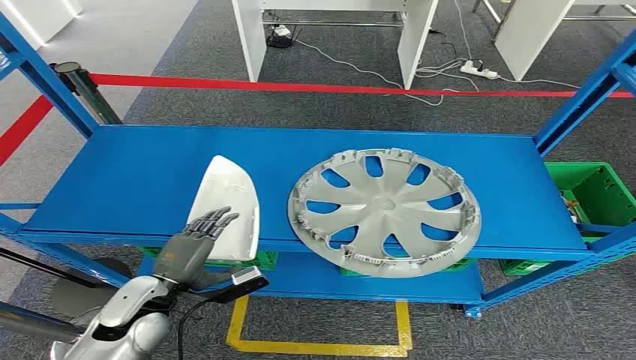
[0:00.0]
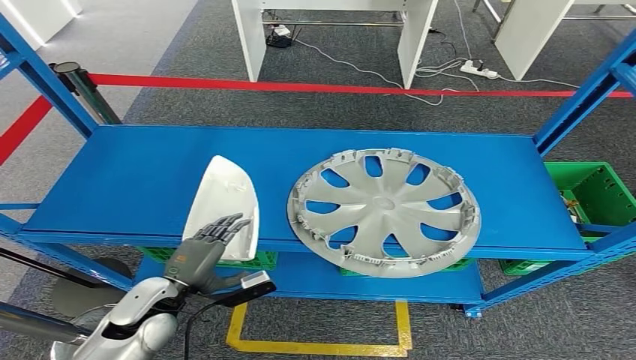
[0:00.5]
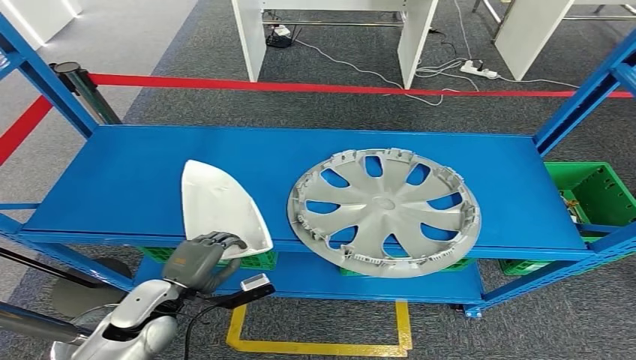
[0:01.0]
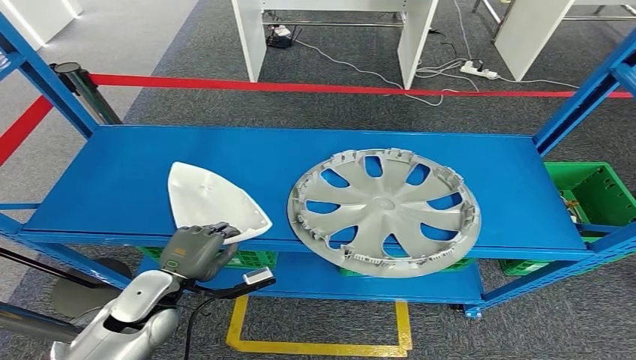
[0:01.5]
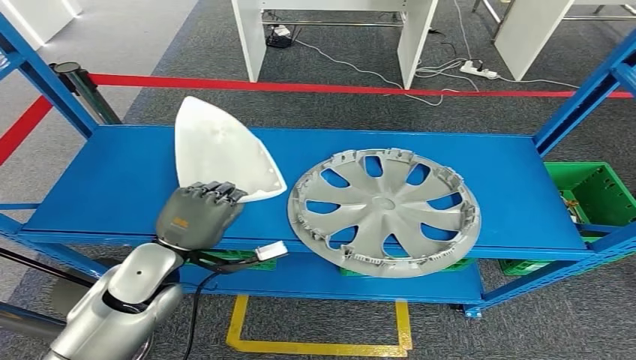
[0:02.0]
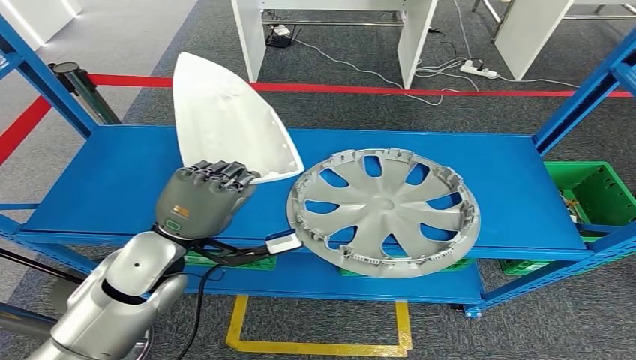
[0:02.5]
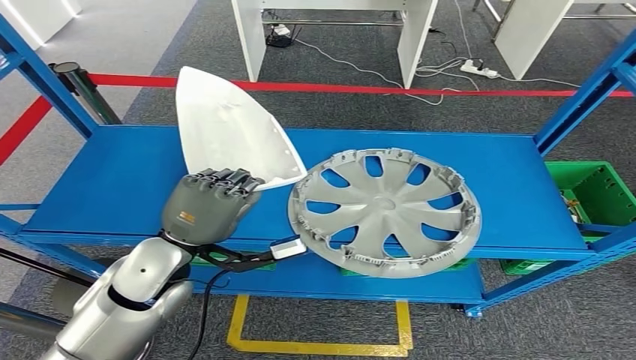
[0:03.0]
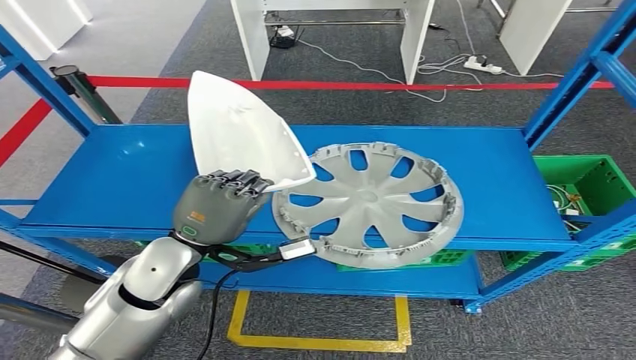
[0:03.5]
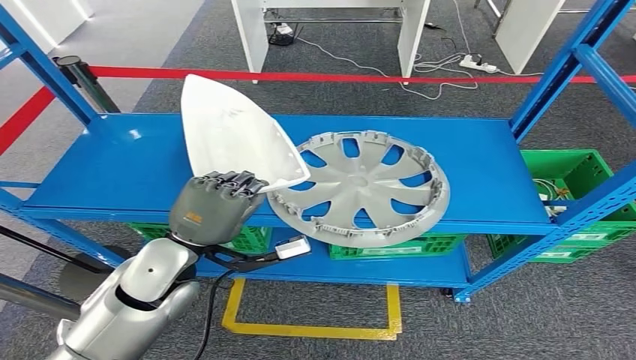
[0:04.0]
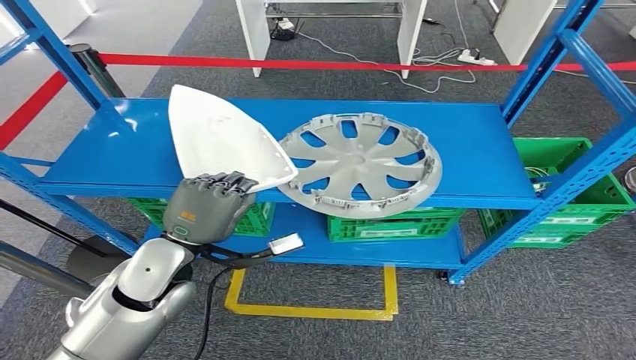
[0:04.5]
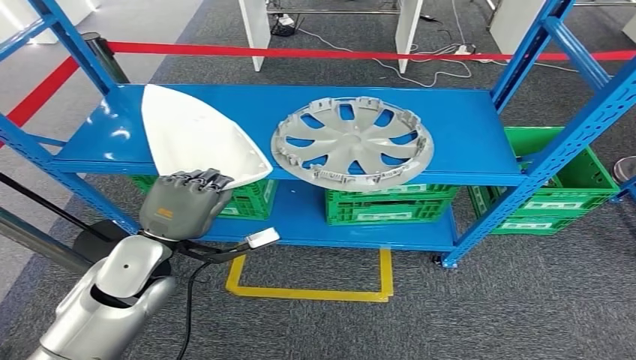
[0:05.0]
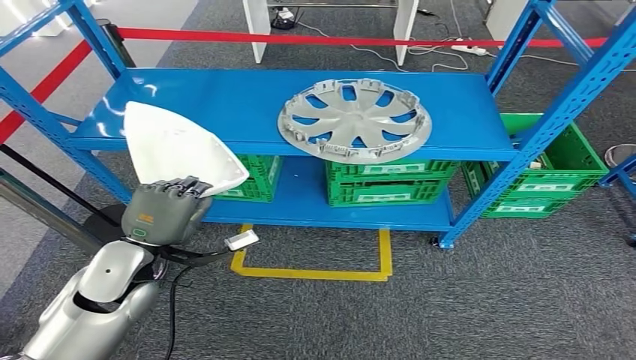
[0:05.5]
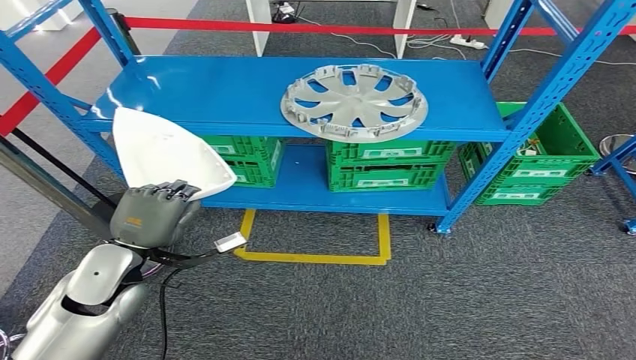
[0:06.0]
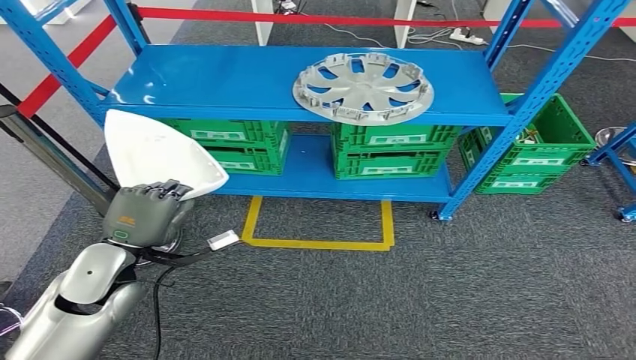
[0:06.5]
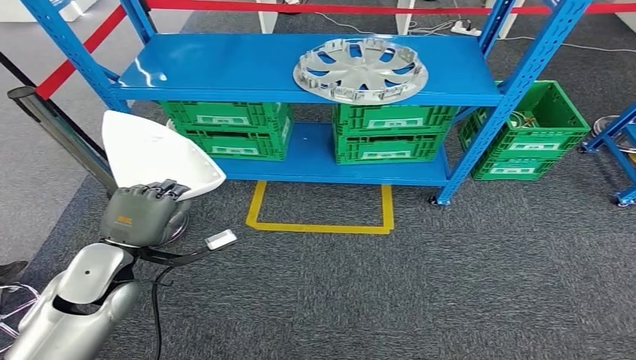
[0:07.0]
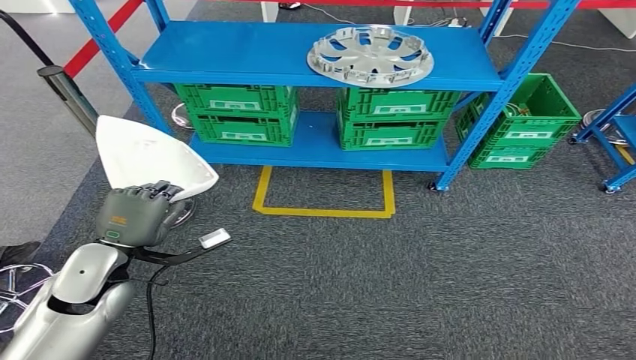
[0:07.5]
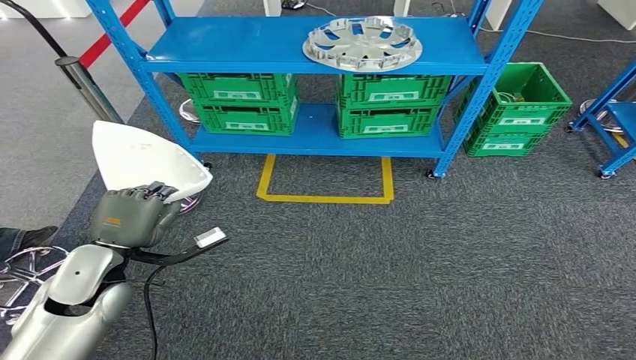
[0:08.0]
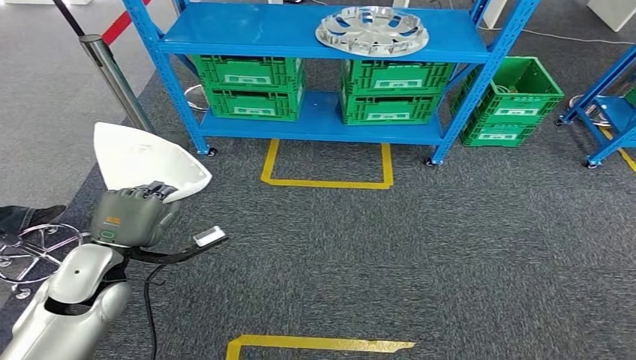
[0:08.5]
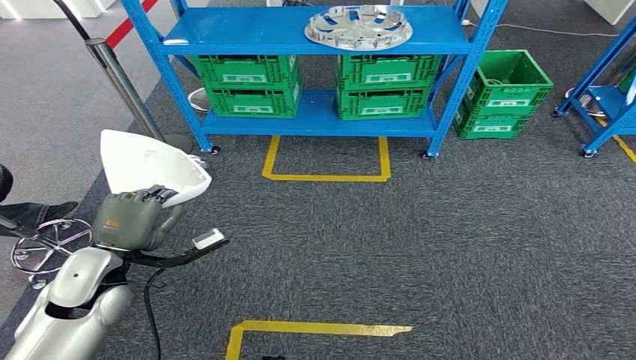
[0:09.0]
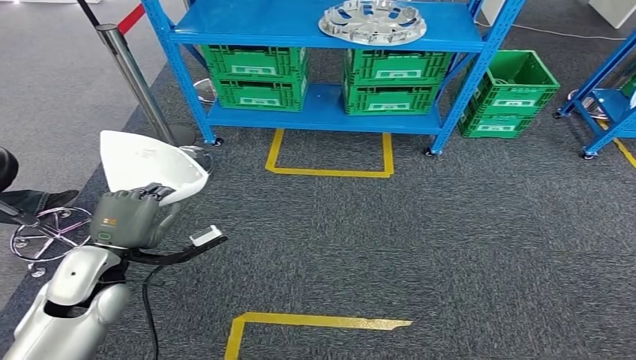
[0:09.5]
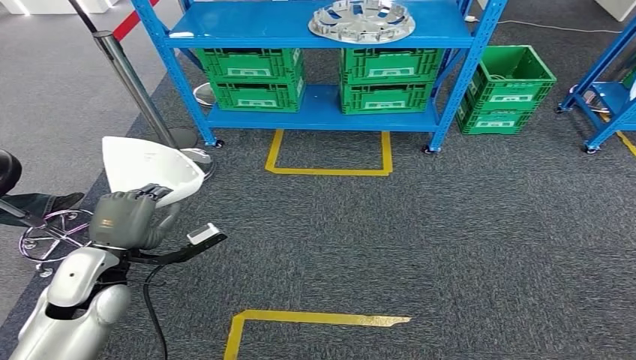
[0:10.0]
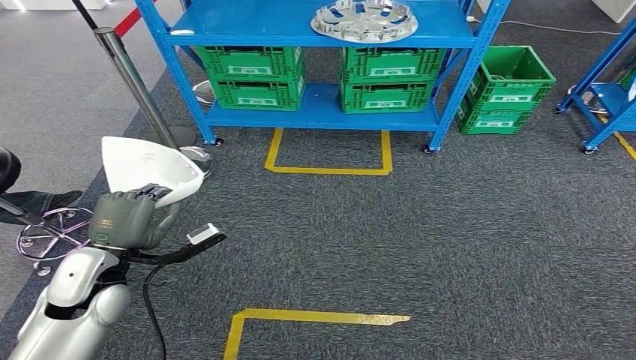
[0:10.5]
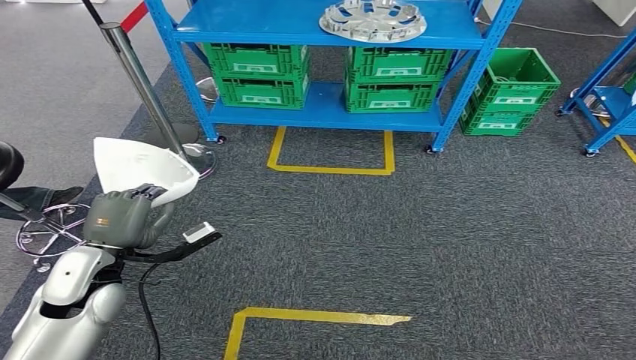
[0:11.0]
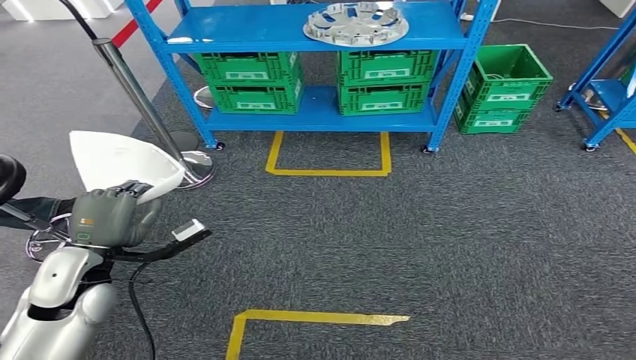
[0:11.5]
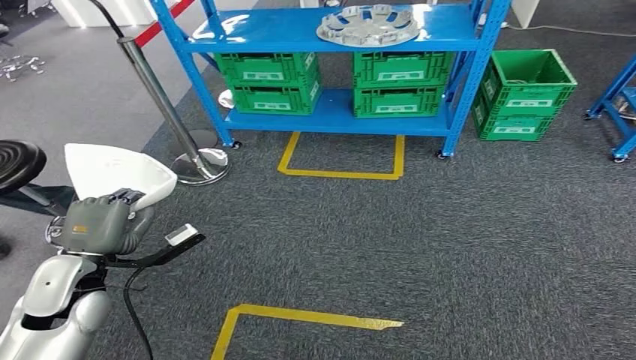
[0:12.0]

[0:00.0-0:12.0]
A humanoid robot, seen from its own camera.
Step, 0:00.0 to 0:02.5: Pick up the small component from the shelf.

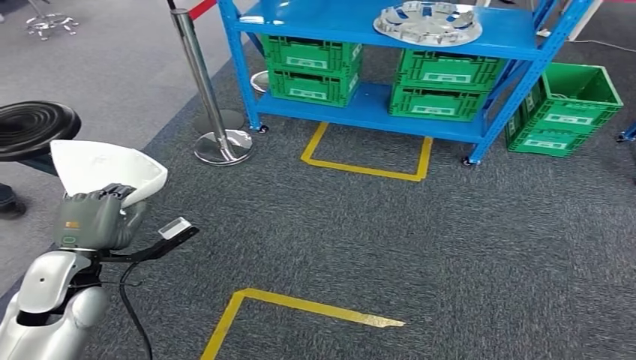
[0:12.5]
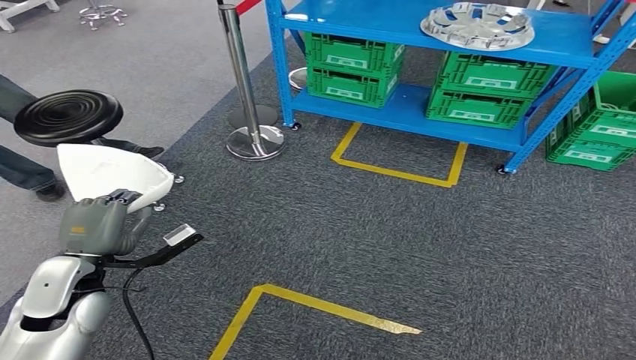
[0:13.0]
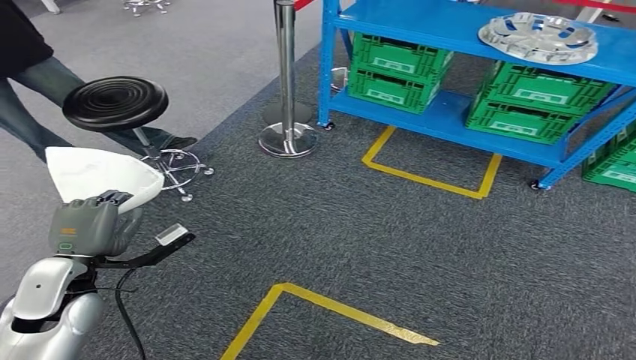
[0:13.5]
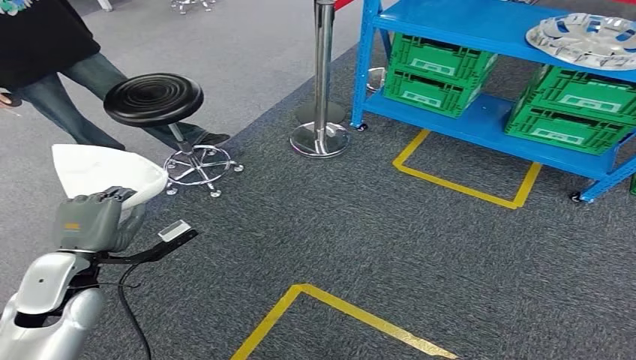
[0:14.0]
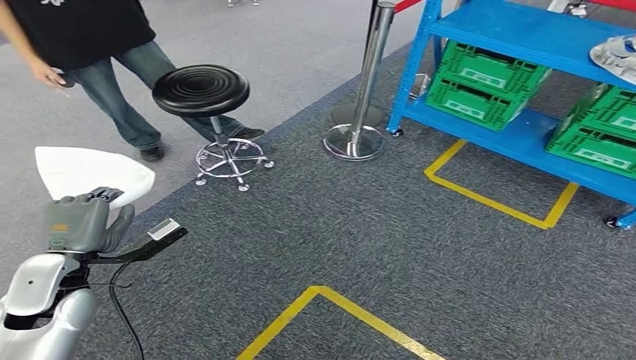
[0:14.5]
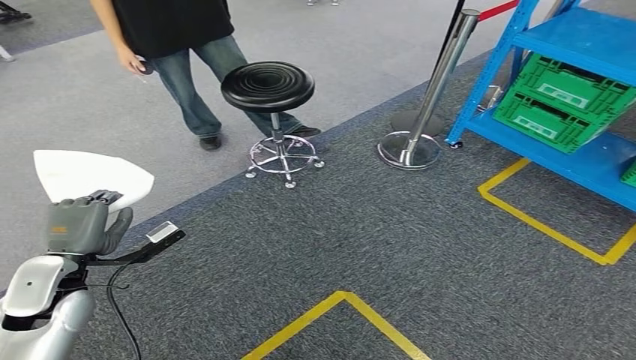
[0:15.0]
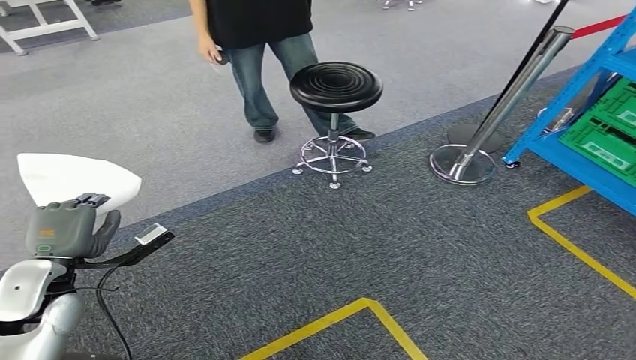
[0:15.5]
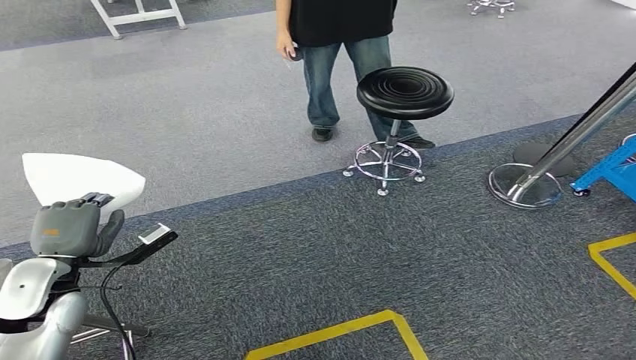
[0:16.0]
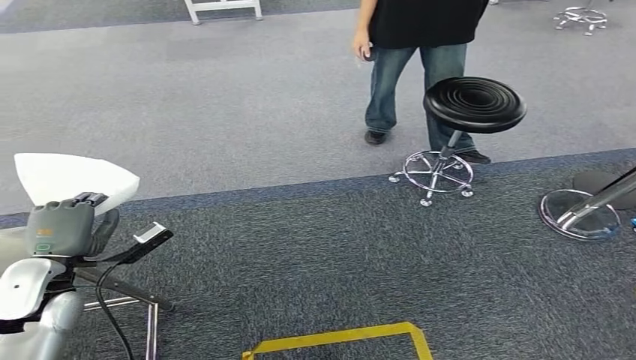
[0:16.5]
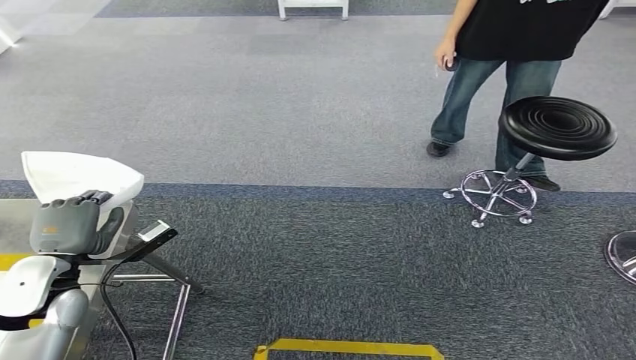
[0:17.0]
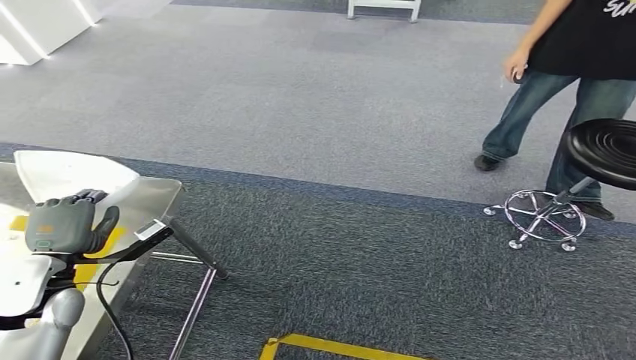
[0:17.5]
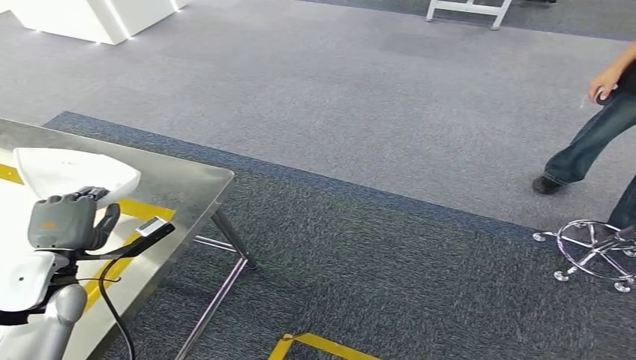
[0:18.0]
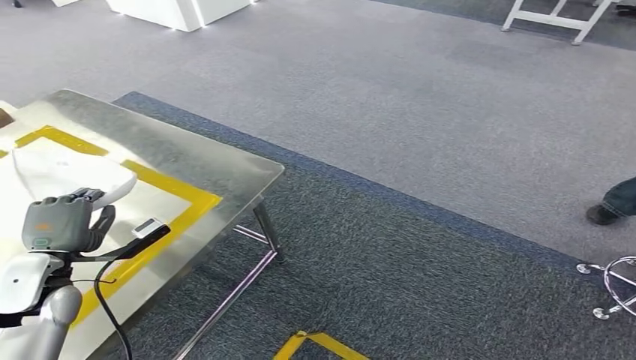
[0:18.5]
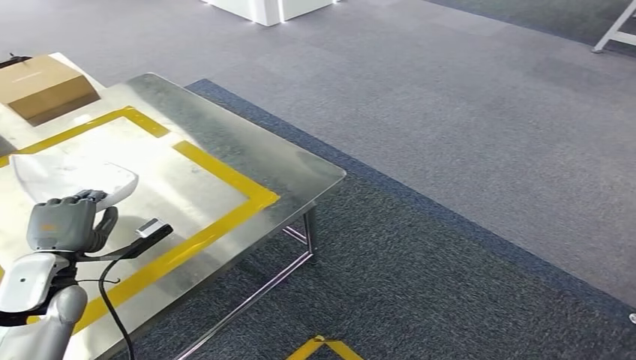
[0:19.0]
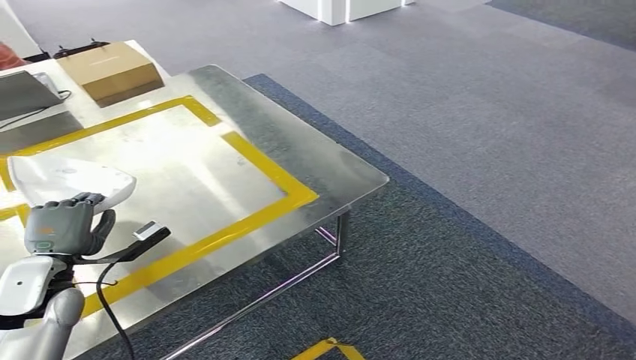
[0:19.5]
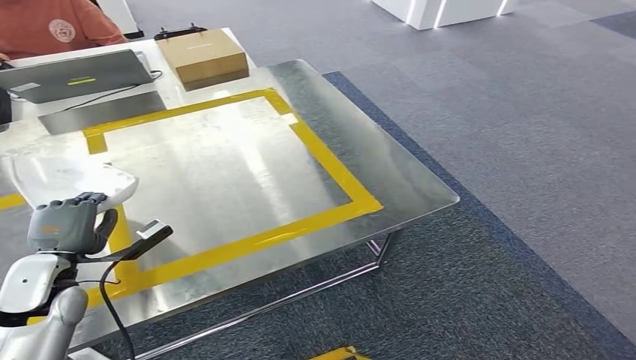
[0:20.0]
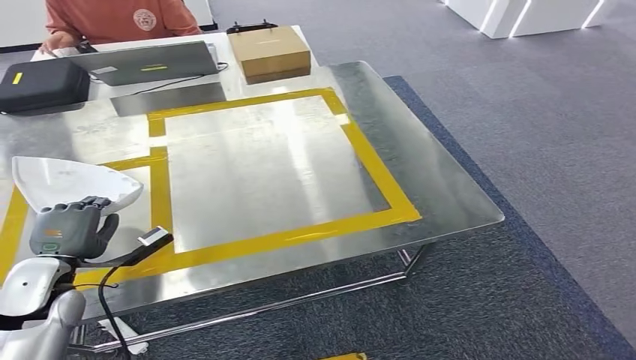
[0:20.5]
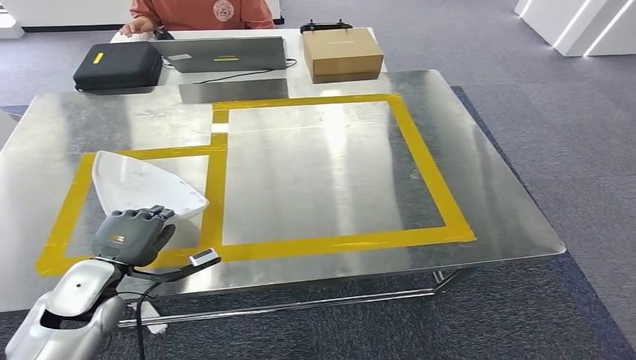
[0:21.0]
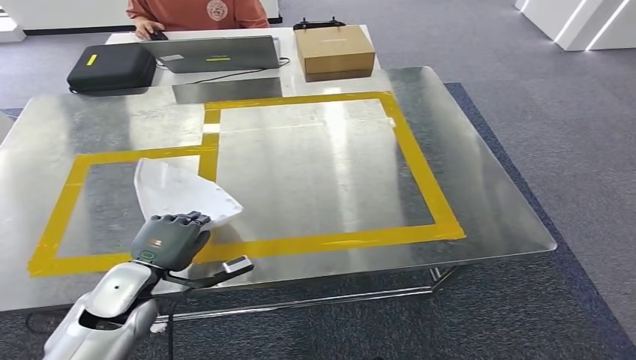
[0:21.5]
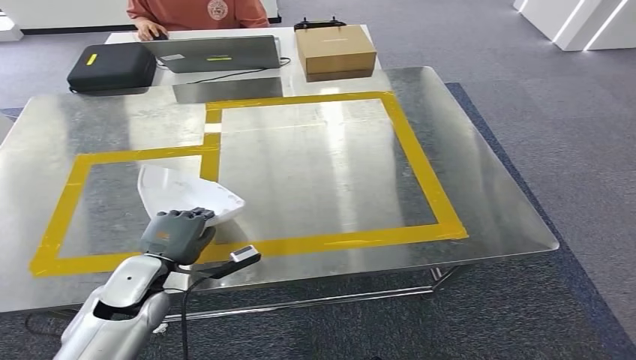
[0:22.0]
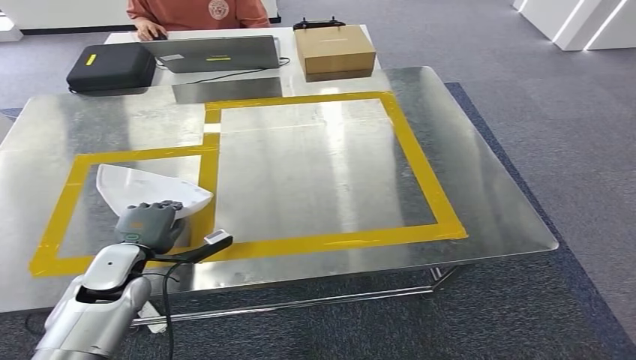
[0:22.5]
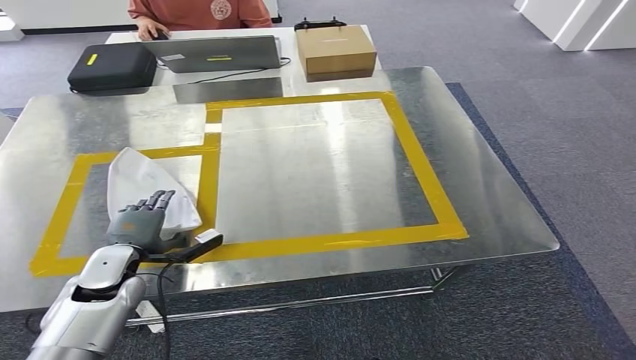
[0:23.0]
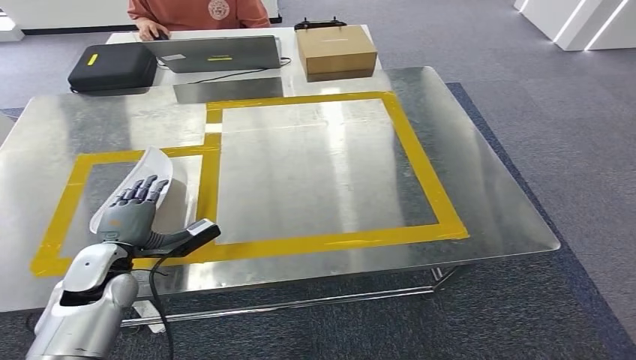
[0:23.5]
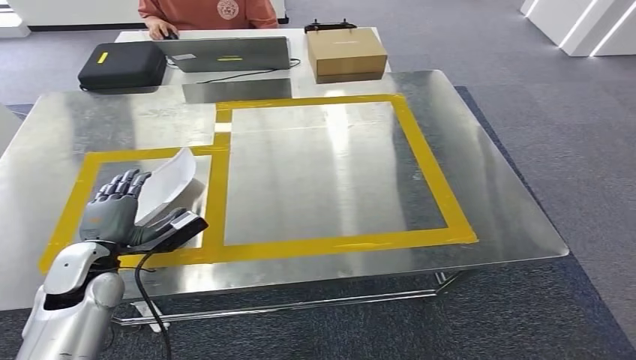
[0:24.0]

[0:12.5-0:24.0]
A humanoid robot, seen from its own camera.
Step, 0:12.5 to 0:19.0: Move the small component to the workbench.
